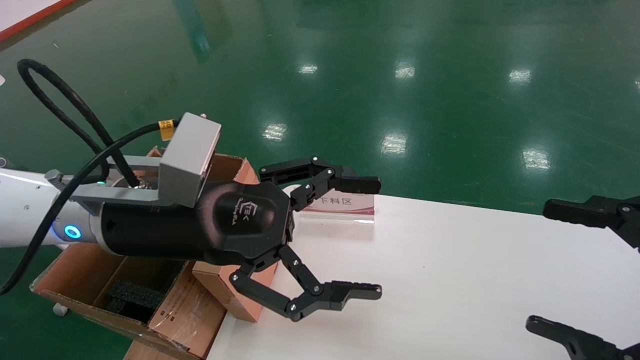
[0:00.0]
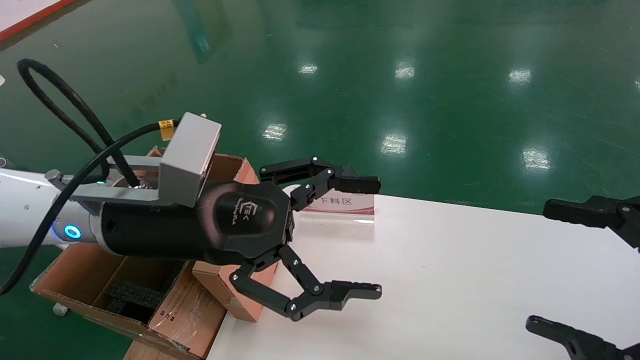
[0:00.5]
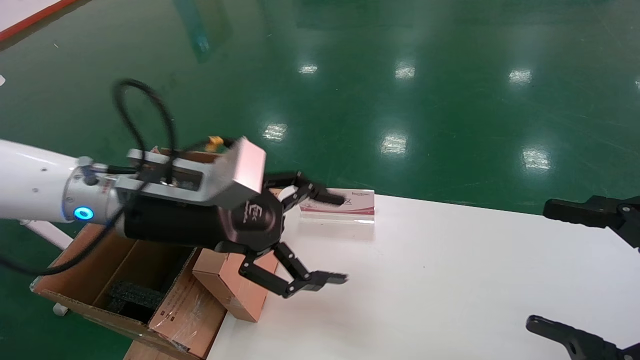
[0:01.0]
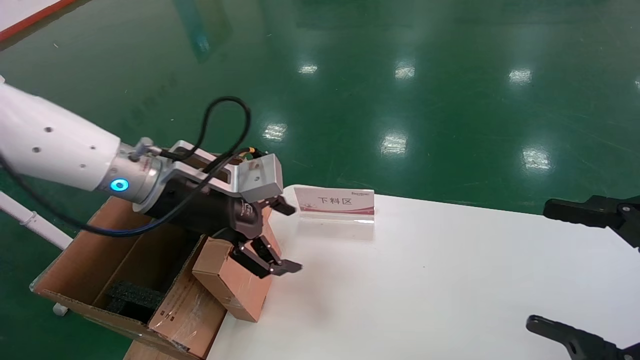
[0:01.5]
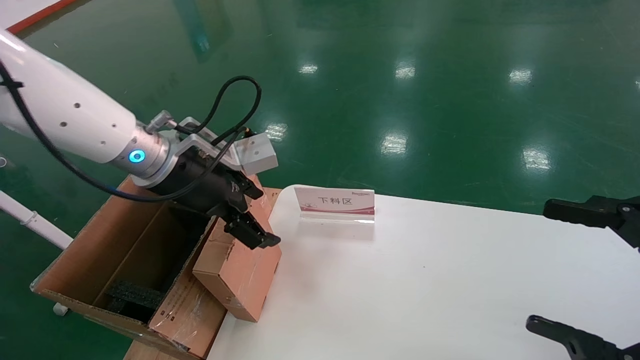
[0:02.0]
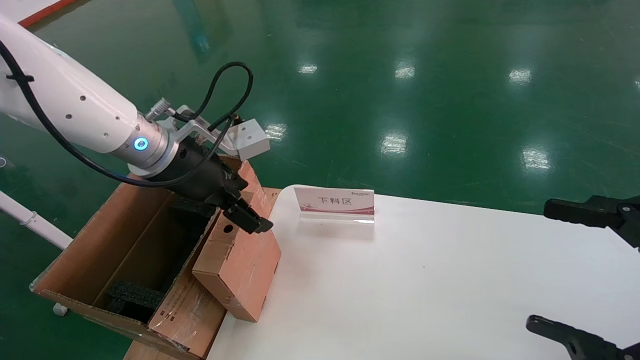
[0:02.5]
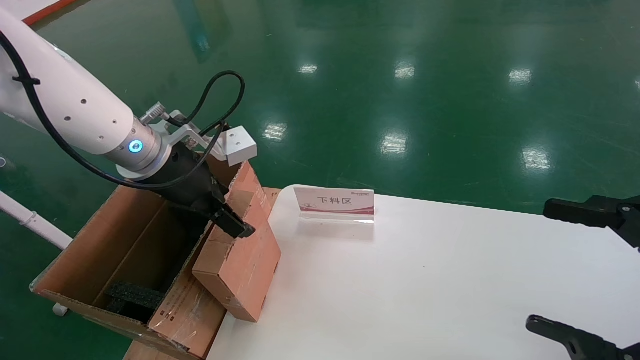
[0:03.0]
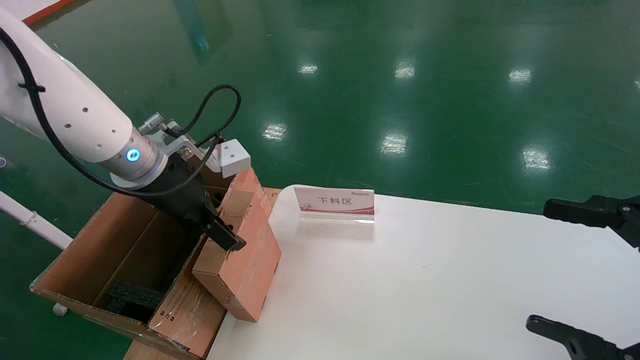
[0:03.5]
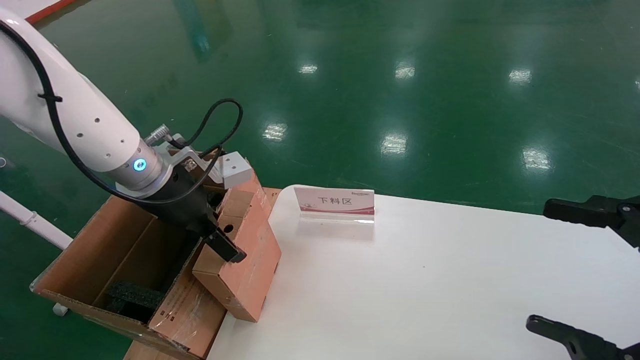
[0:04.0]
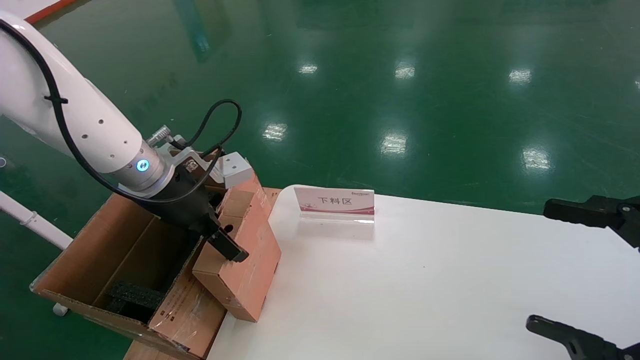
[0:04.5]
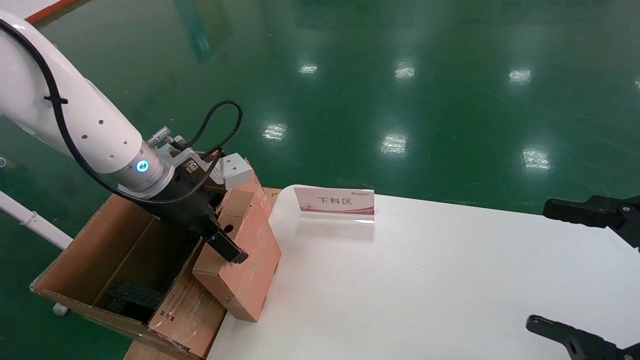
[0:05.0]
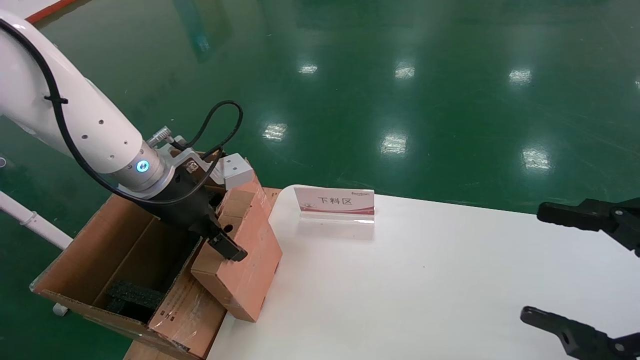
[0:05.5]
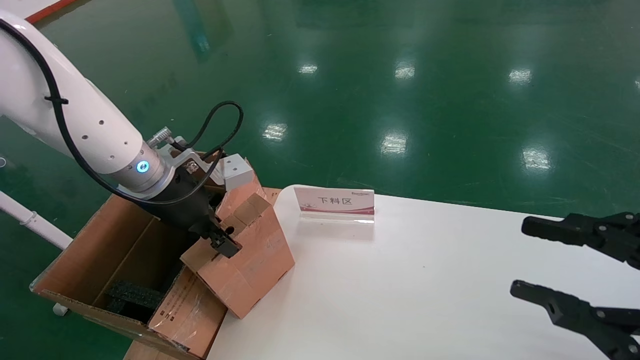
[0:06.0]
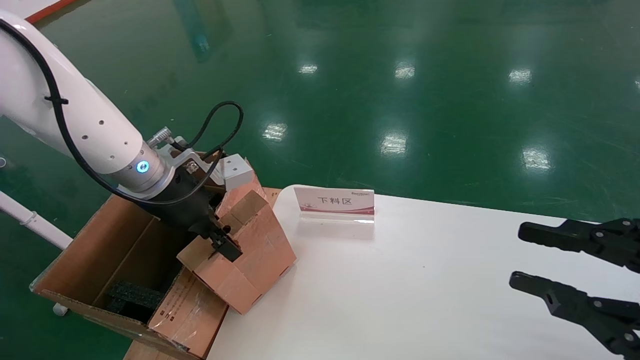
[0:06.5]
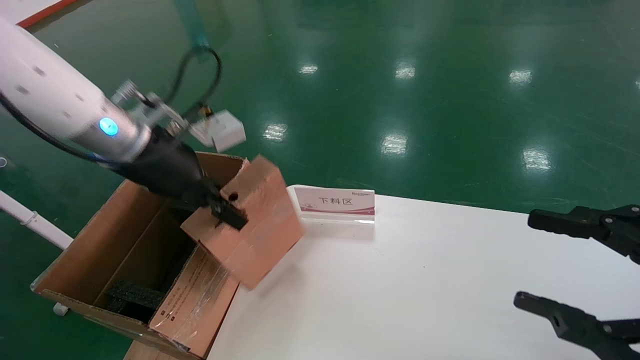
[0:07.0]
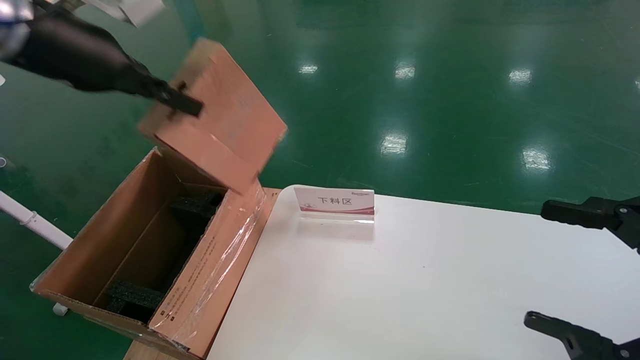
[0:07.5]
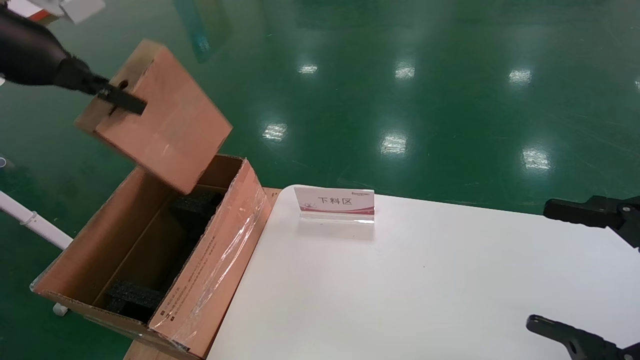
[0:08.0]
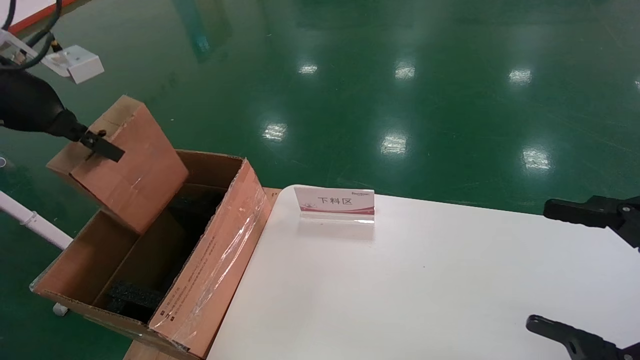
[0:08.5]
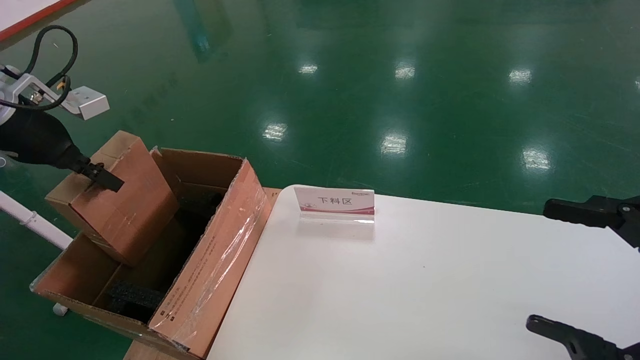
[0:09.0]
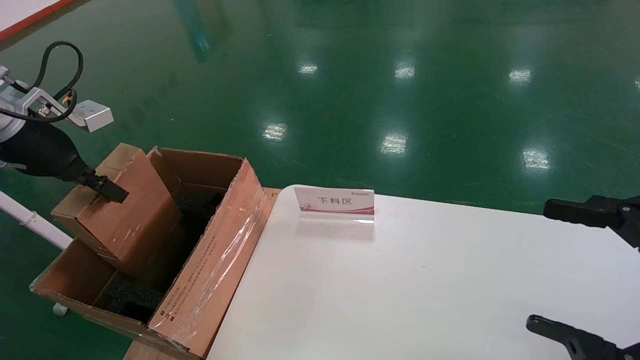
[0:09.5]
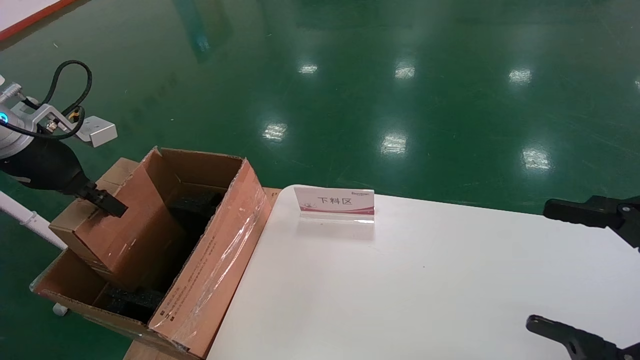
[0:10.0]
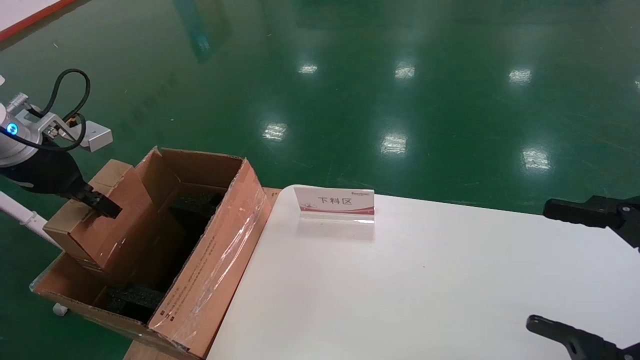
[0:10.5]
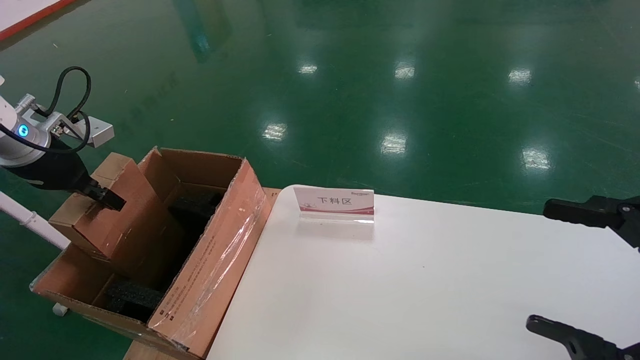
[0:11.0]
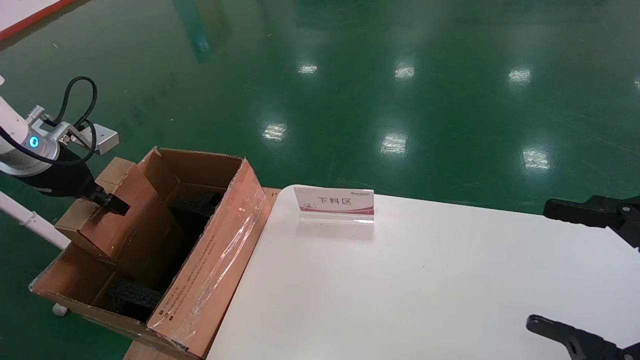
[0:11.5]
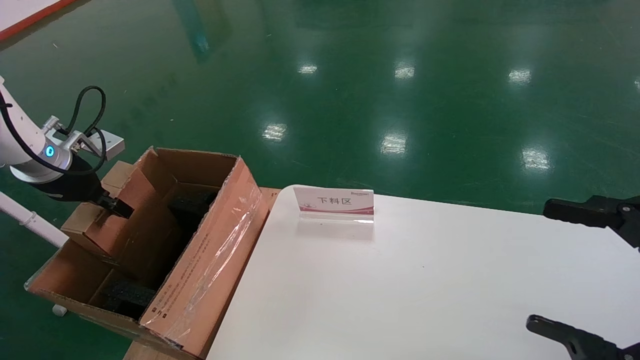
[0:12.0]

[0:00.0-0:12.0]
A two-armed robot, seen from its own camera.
Task of the whole recording: pick up the small cardboard box and load it into the large cardboard box.
Step, 0:01.0 to 0:06.0: Pick up the mouse and power cord box.
0:00.0 to 0:02.0: The left gripper shifts some 10 cm forward.
0:04.0 to 0:06.0: The left gripper closes up. The right gripper closes.
0:06.0 to 0:08.0: The left gripper travels upward and to the left by approximately 20 cm, and closes its fingers; the right gripper opens.
0:08.0 to 0:10.0: The left gripper shifts approximately 15 cm downward and to the left.
0:10.0 to 0:12.0: The left gripper heads downward, covering approximately 5 cm.

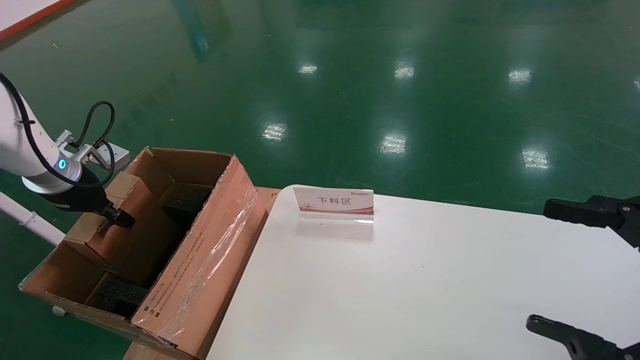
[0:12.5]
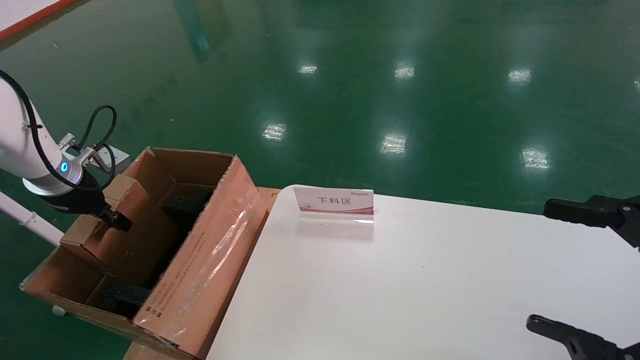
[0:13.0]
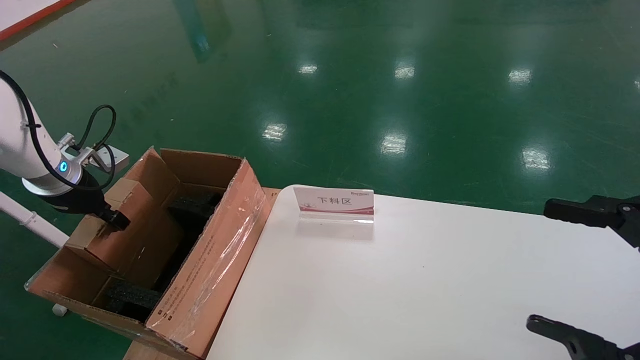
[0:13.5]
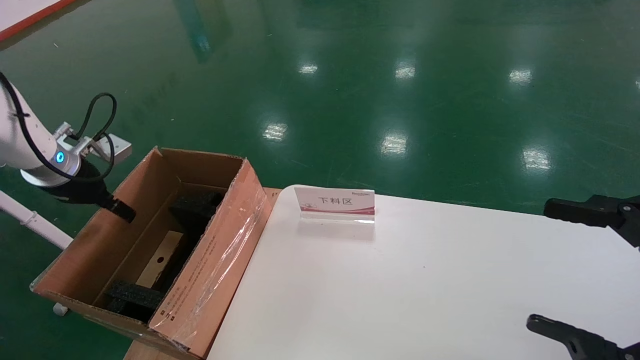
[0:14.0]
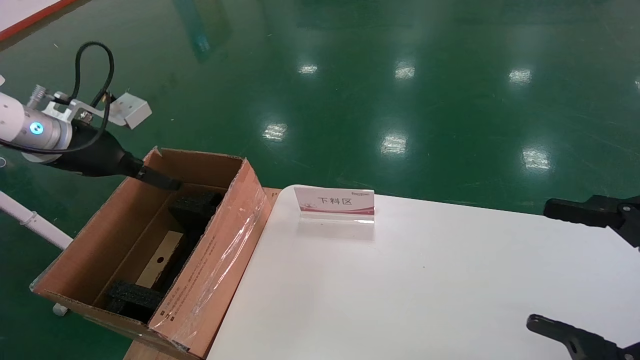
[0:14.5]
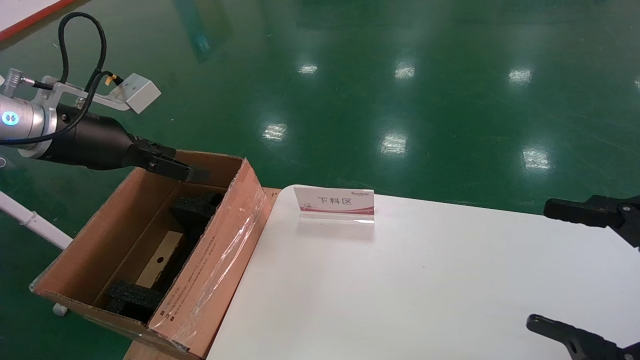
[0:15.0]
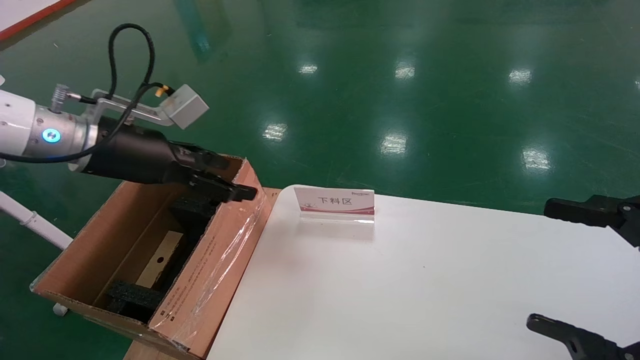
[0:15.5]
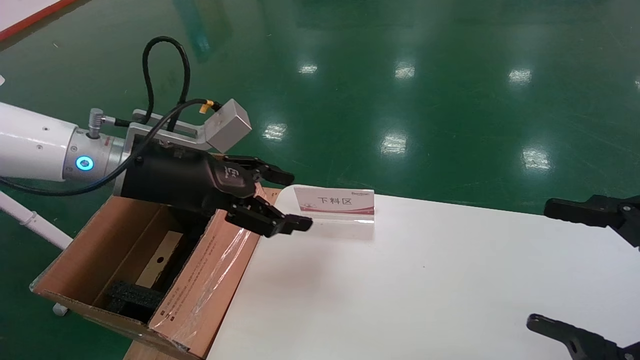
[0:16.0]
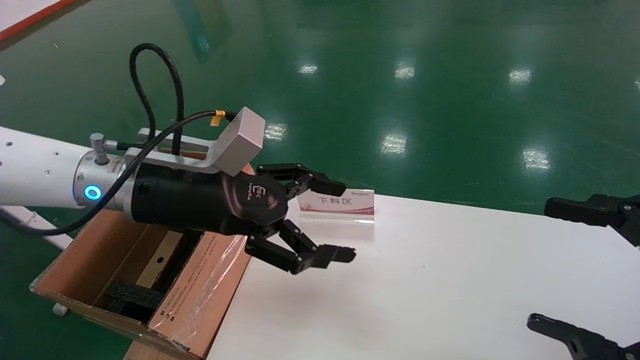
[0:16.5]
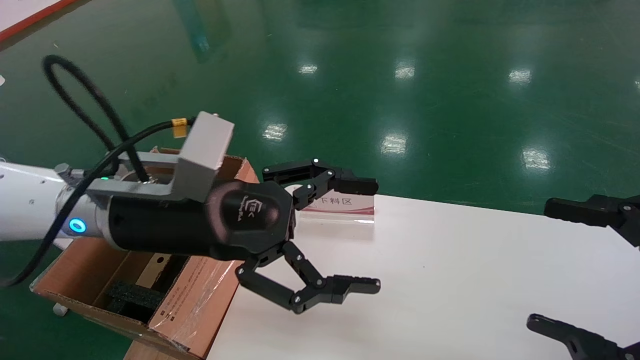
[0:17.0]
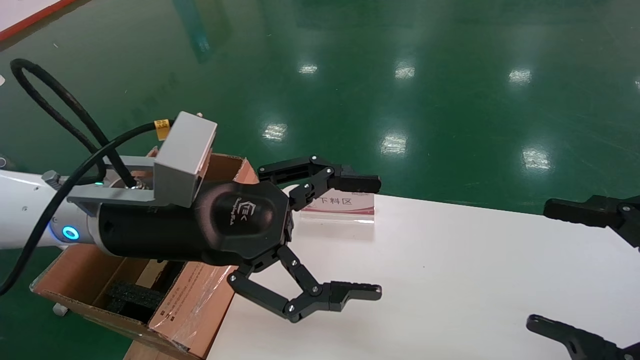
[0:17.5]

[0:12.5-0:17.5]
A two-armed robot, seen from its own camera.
Task of the whole recording: pick up the small cardboard box and load it into the large cardboard box.
0:12.5 to 0:15.0: The left gripper is displaced to the right and upward by about 15 cm, and opens its fingers.
0:15.0 to 0:17.5: The left gripper shifts approximately 20 cm to the right.
